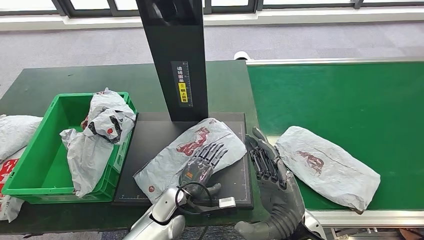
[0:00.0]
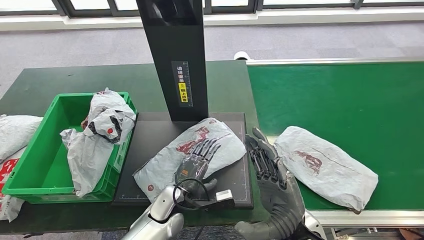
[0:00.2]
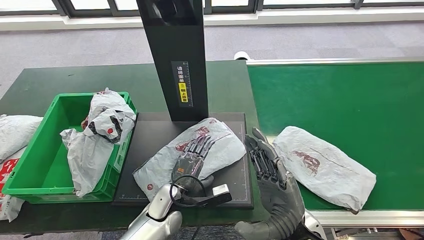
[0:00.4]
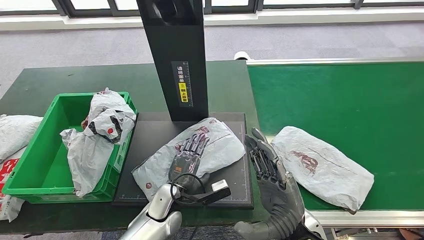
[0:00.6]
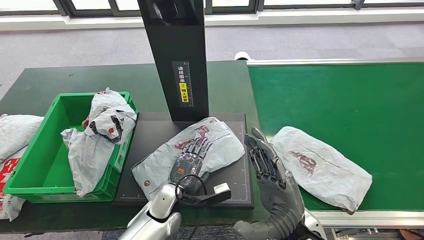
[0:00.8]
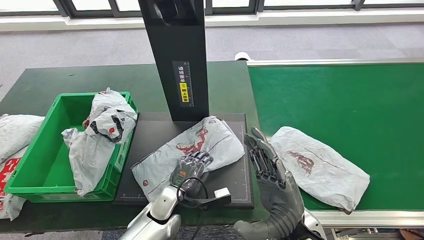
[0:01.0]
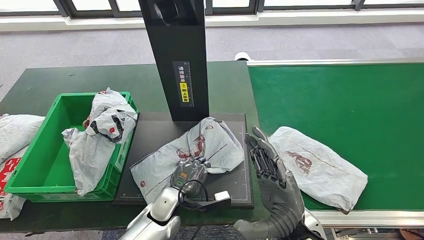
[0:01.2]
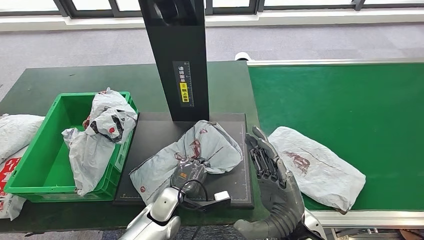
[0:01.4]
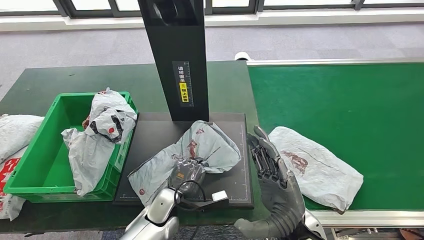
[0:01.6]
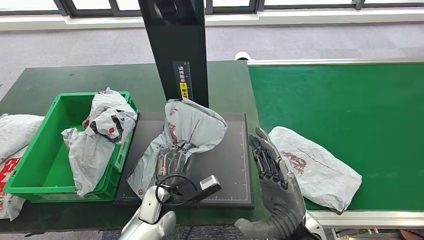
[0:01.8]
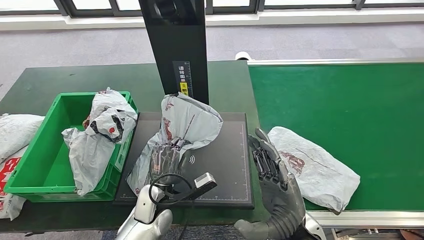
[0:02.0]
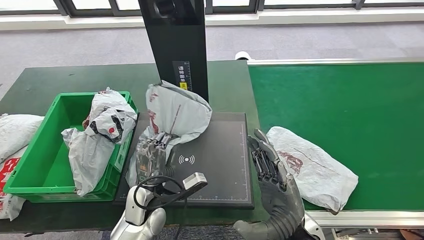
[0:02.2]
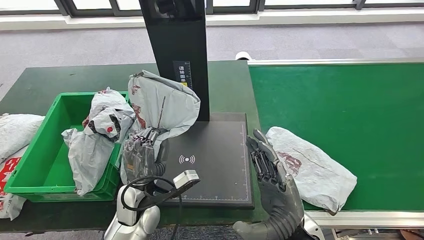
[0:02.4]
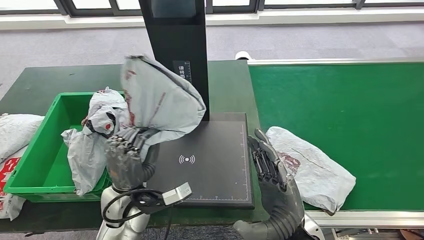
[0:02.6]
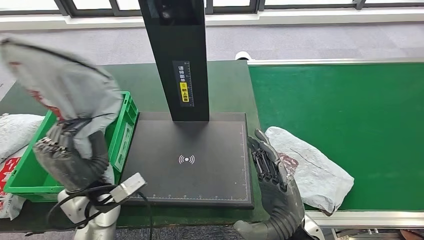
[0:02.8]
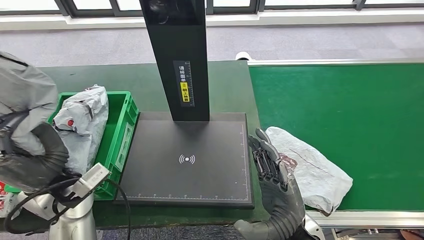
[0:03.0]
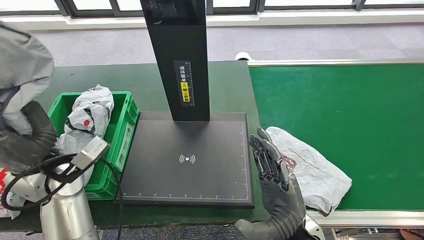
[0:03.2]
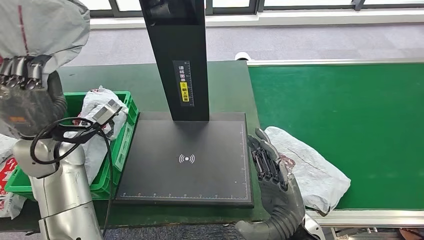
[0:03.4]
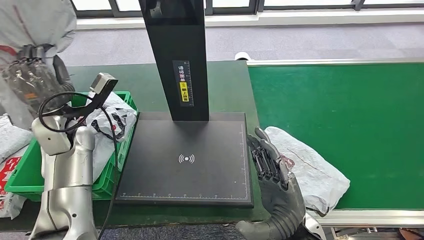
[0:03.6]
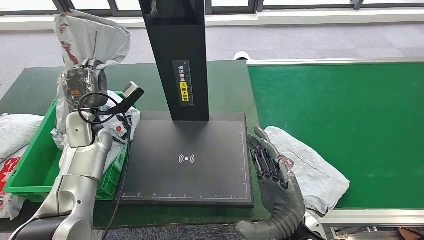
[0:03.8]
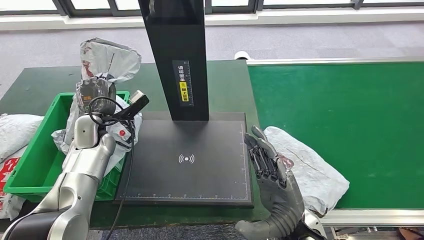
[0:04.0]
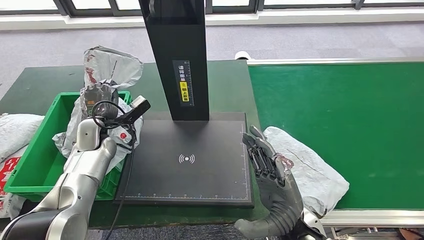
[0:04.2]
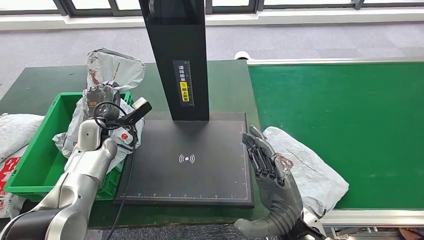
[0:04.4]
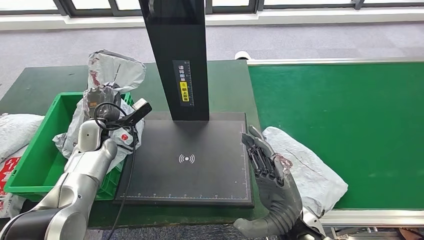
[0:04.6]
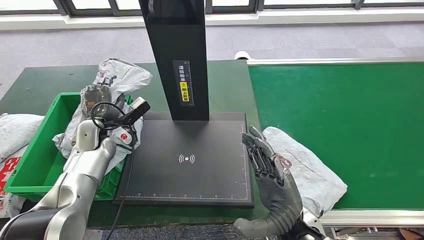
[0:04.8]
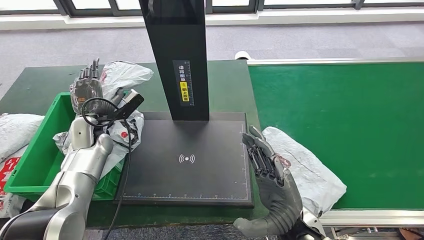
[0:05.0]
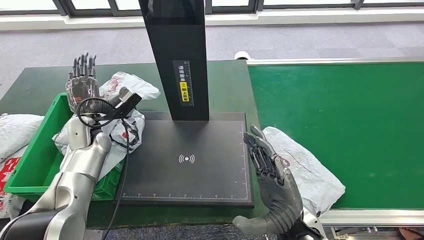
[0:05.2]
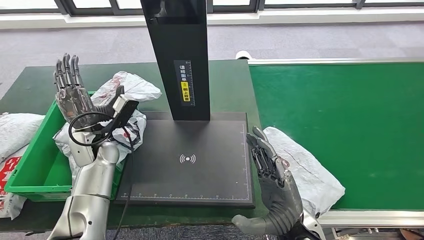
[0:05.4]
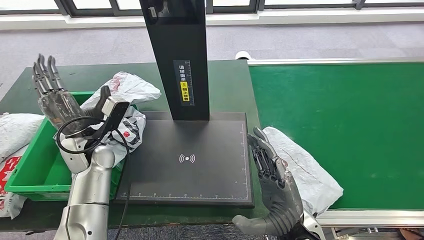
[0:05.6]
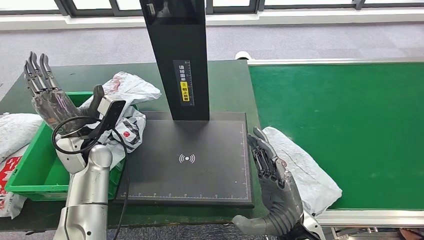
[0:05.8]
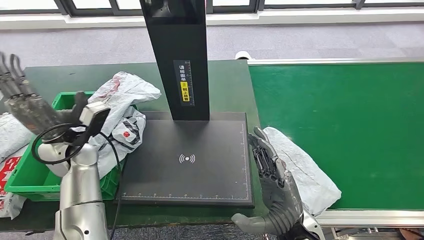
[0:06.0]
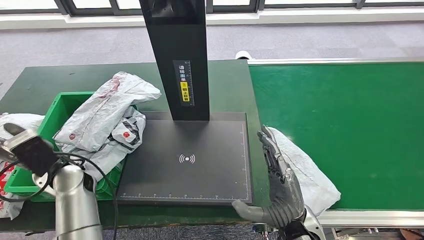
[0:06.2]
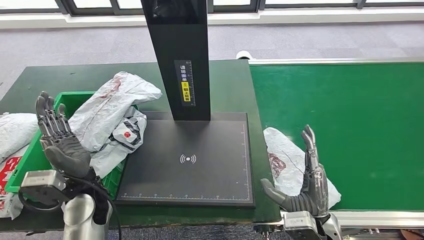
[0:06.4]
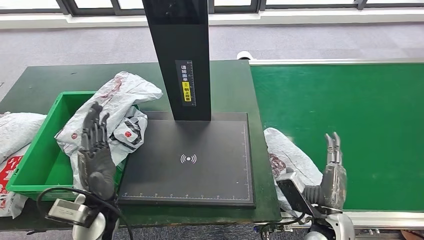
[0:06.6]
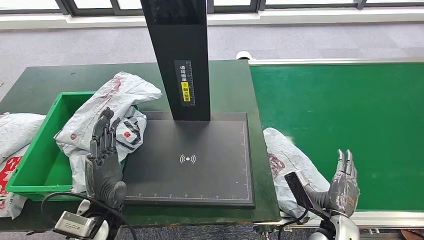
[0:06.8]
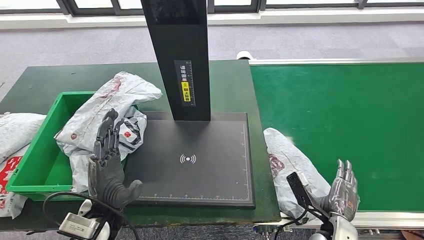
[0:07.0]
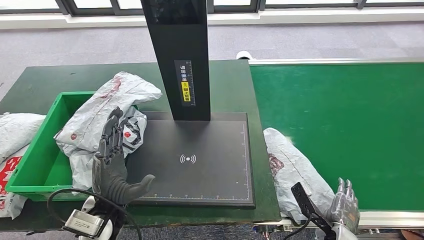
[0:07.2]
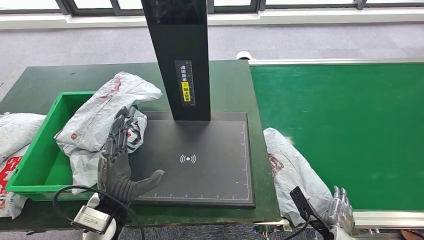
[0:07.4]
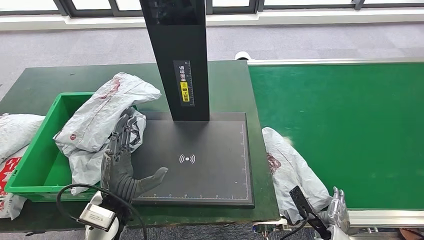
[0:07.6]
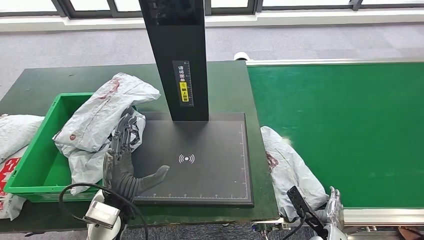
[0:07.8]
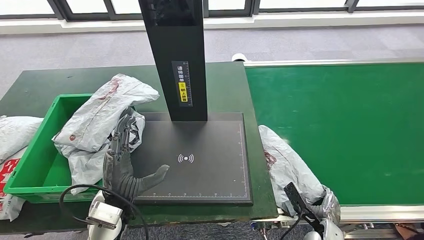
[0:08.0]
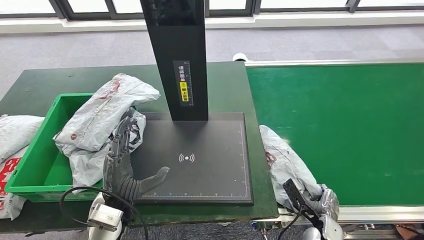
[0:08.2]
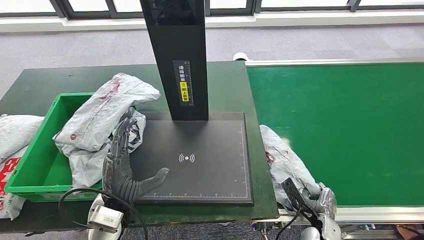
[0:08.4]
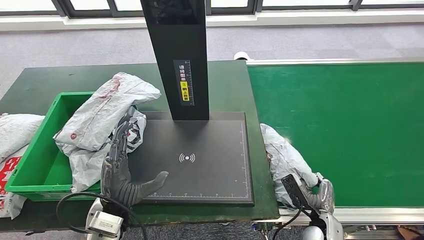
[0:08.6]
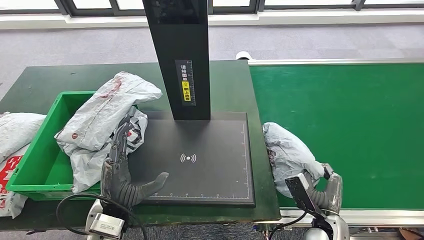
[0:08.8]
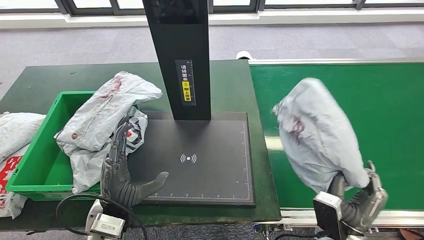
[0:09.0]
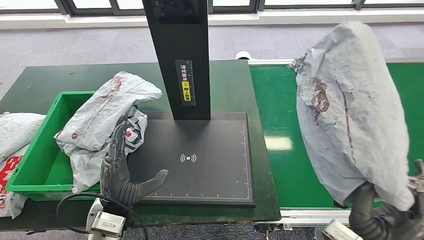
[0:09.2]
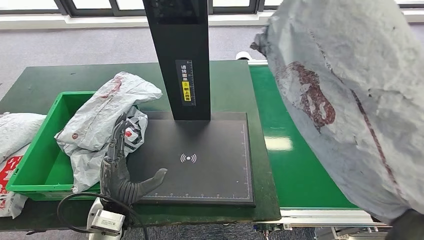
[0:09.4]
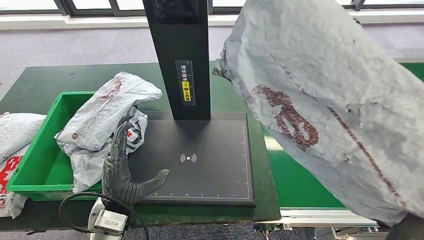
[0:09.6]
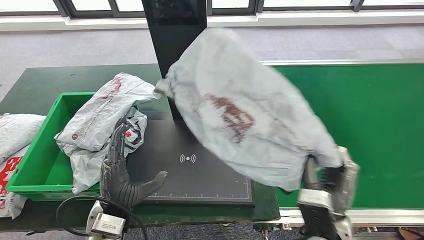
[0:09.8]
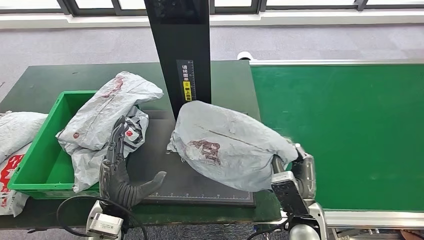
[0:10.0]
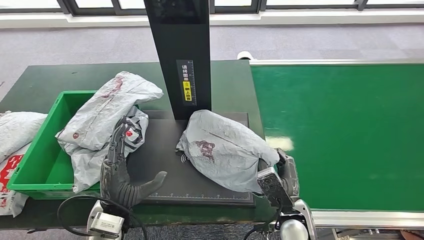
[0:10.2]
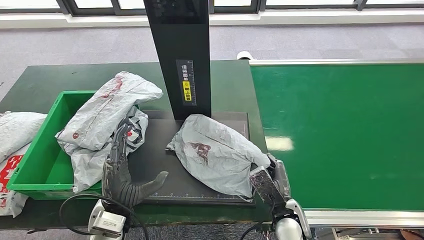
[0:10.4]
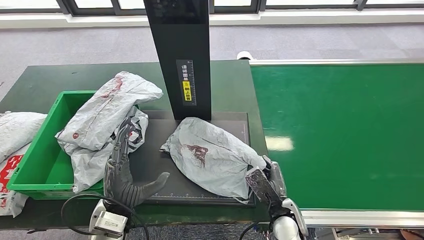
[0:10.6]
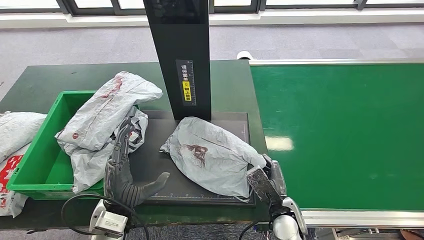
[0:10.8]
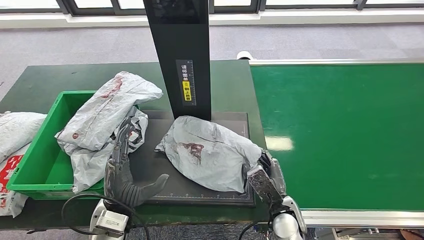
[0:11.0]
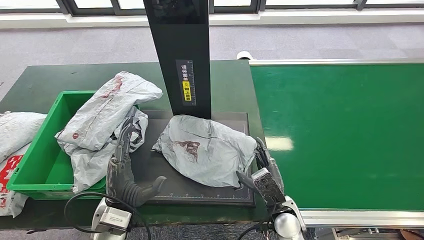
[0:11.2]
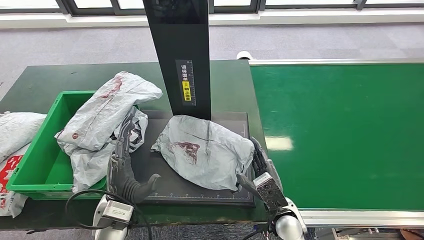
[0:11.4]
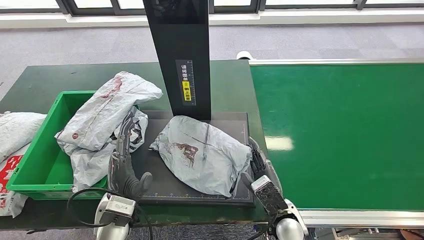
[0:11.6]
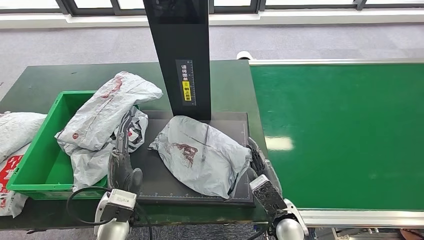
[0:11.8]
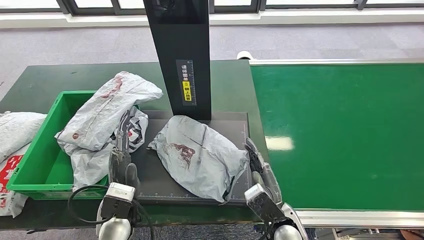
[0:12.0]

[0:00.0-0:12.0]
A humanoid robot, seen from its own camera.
Step, 0:00.0 to 0:03.0: Pick up the parcel from the inbound machine.
Step, 0:03.6 to 0:06.8: Place the parcel into the delivery box.
Step, 0:08.6 to 0:09.6: Pick up the parcel from the conveyor belt.
0:04.4 to 0:06.0: The left hand is displaced backward and upward by roughly 10 cm.
0:06.0 to 0:07.6: The right hand goes approximately 20 cm downward and to the right, while the left hand travels backward and to the right by roughly 15 cm.

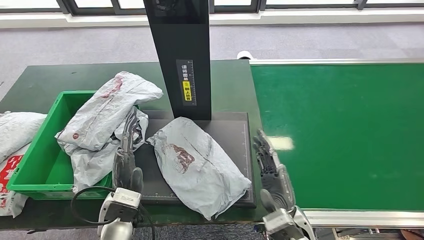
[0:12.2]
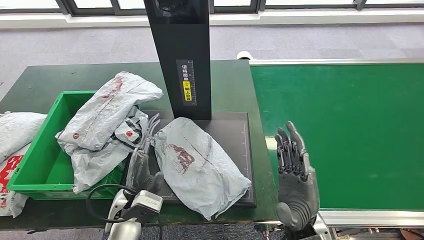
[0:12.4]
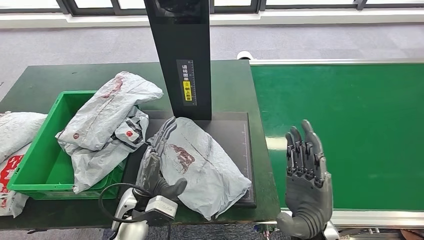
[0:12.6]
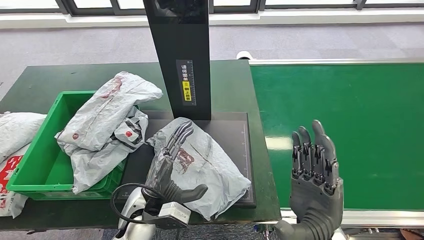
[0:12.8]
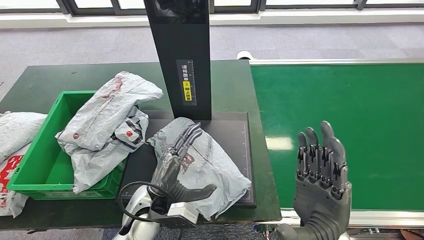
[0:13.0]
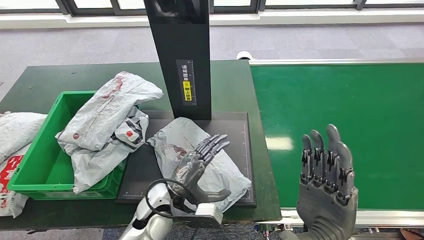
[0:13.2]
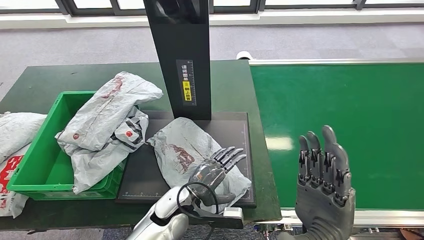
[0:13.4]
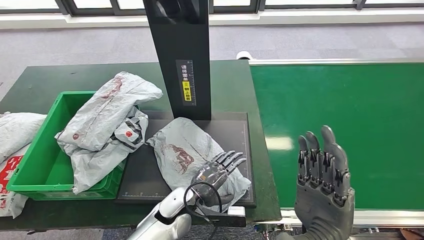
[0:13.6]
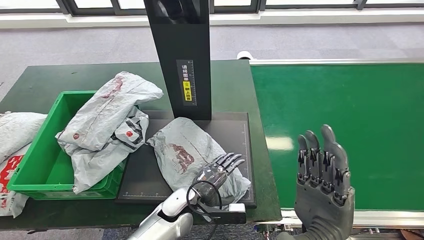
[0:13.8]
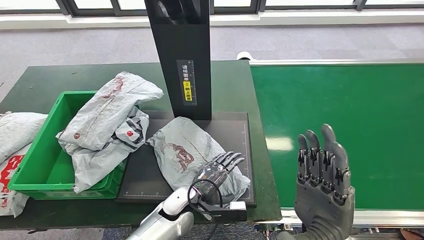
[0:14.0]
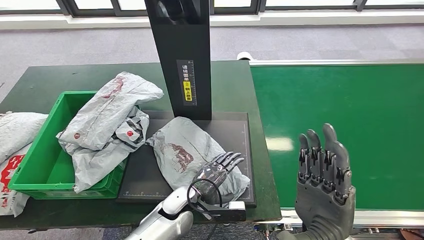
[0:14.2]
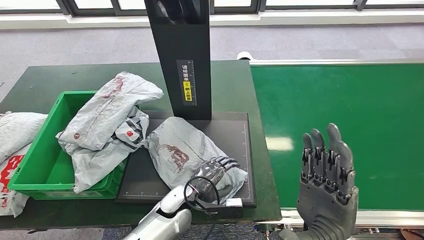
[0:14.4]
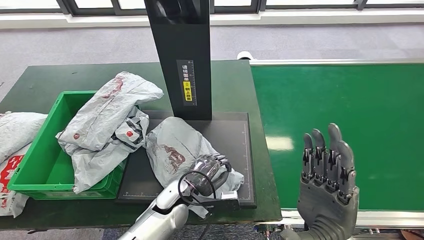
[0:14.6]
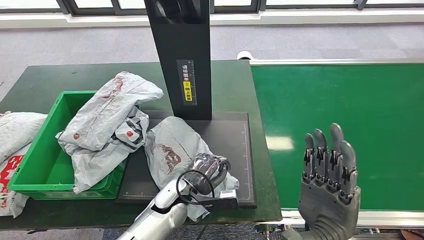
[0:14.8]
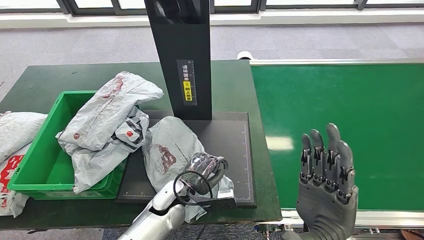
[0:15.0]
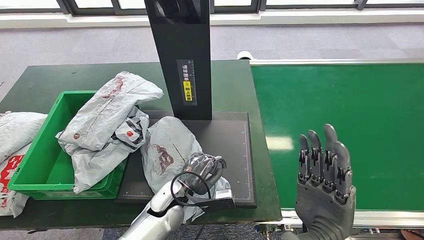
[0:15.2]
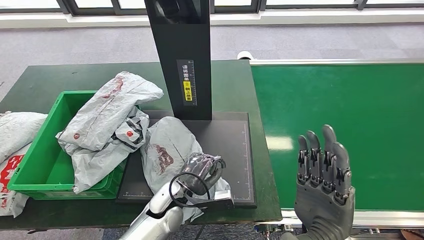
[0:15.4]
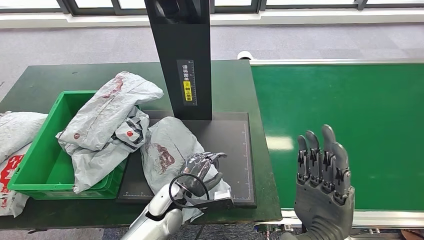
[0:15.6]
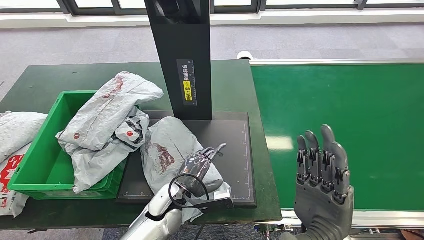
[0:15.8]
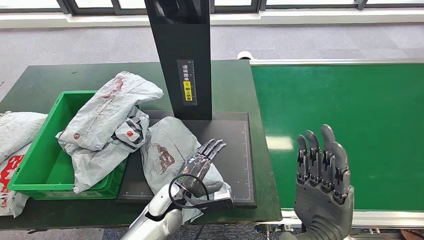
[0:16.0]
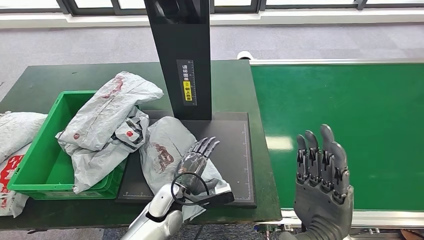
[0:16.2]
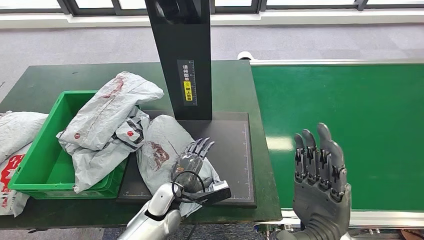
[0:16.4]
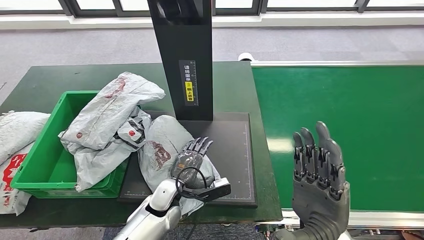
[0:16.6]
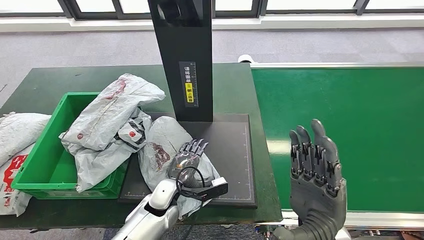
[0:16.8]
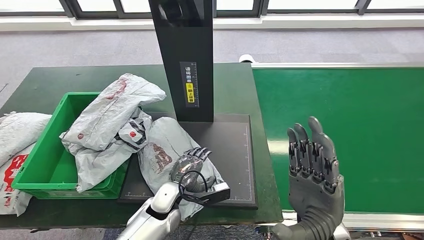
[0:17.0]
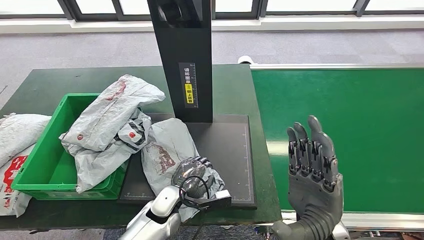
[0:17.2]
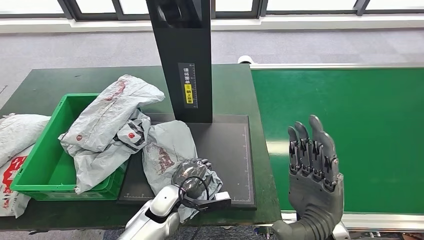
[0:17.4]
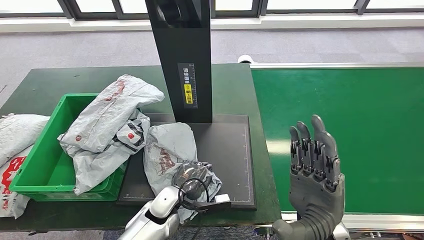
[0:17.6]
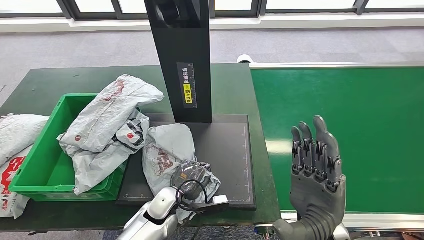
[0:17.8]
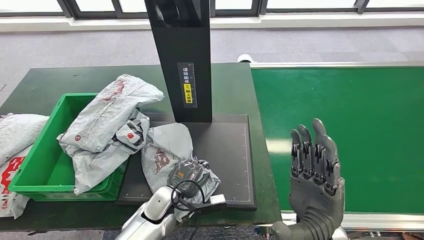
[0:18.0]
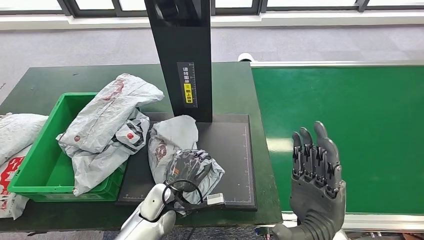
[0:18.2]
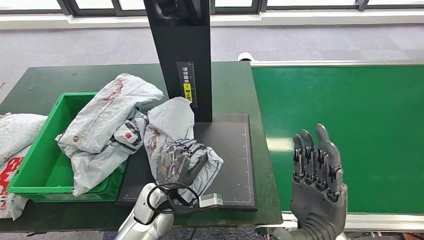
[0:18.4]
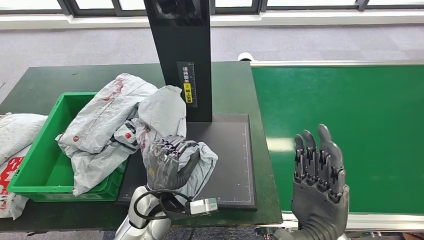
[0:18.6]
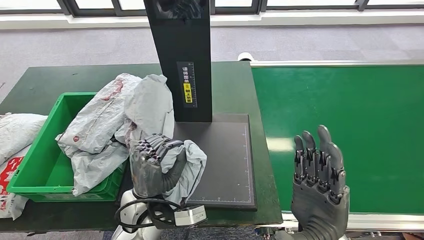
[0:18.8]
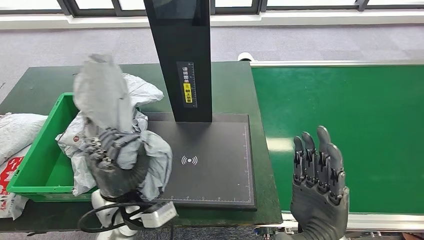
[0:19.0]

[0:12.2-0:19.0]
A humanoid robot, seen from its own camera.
0:12.2 to 0:13.6: The left hand shifts some 15 cm to the right and downward, while the right hand is displaced upward by some 10 cm.
0:13.6 to 0:16.2: The hands move only a little.
